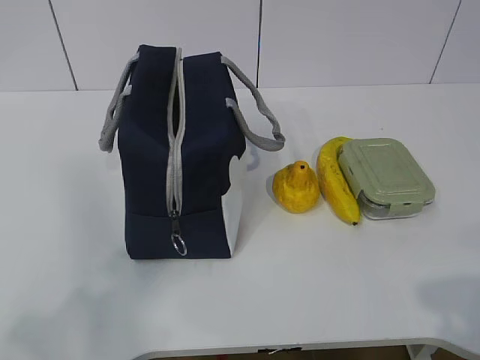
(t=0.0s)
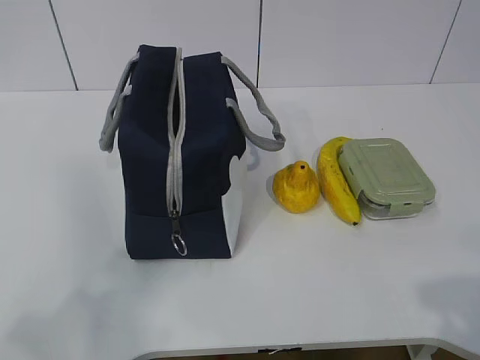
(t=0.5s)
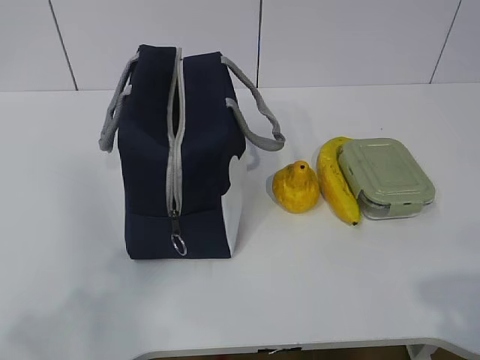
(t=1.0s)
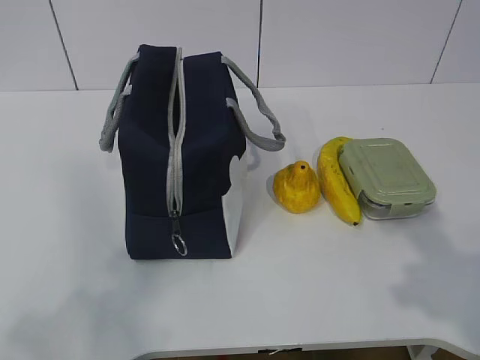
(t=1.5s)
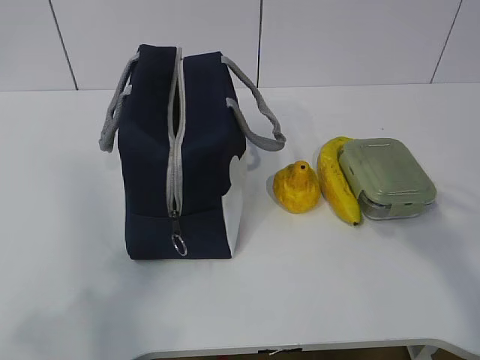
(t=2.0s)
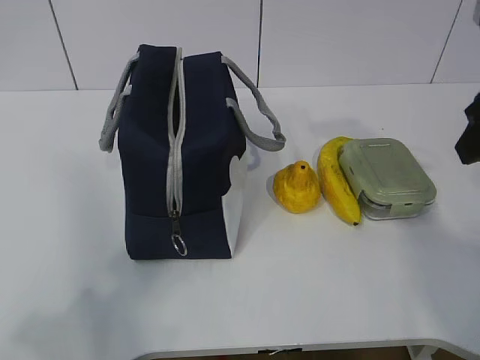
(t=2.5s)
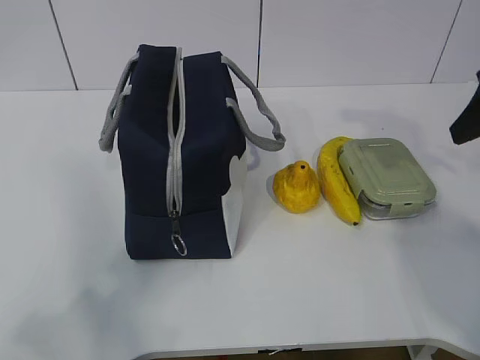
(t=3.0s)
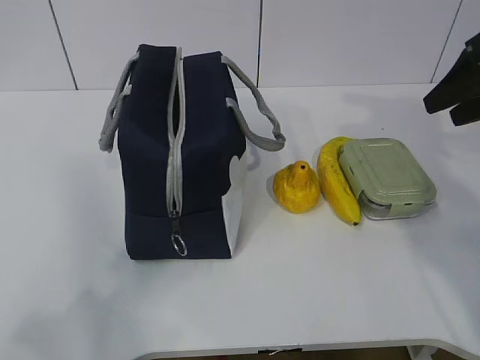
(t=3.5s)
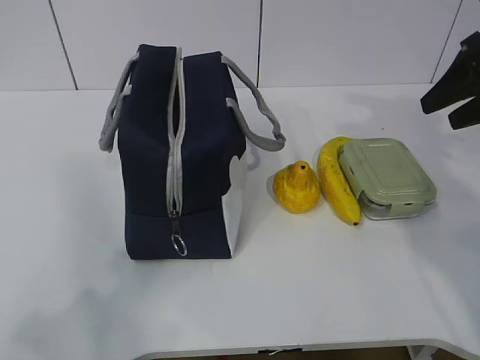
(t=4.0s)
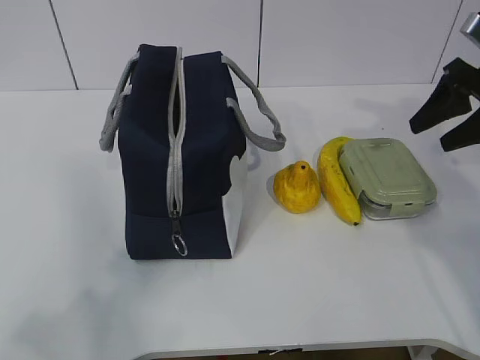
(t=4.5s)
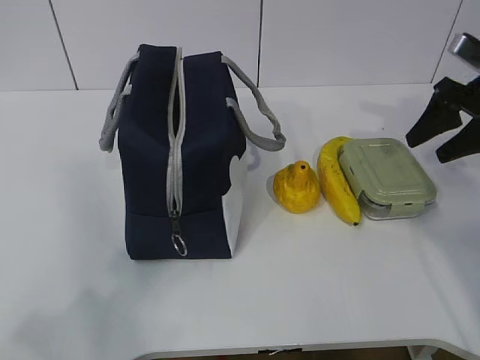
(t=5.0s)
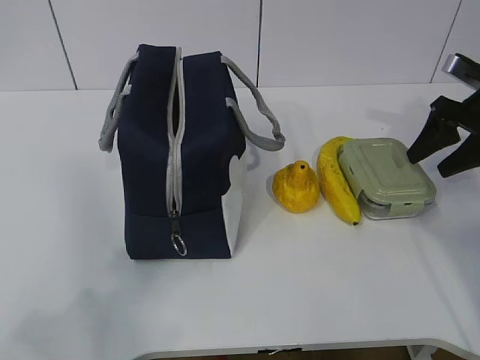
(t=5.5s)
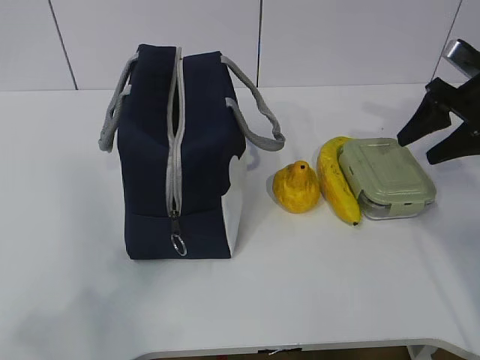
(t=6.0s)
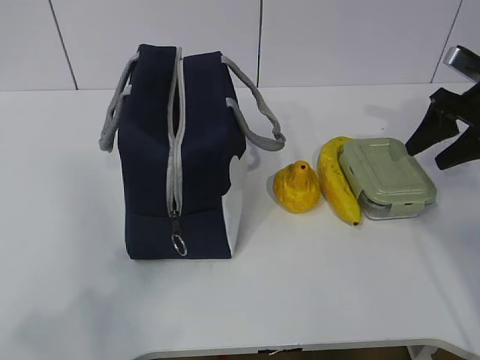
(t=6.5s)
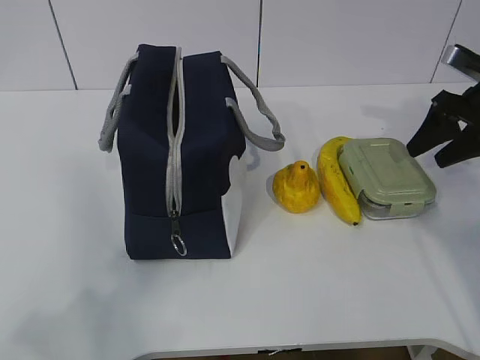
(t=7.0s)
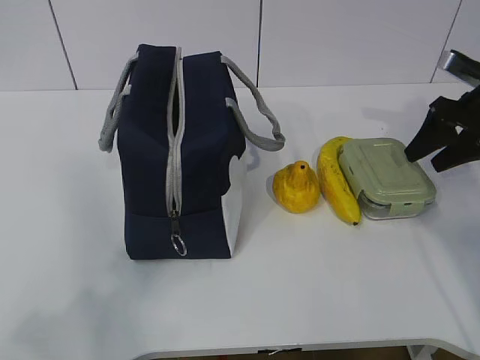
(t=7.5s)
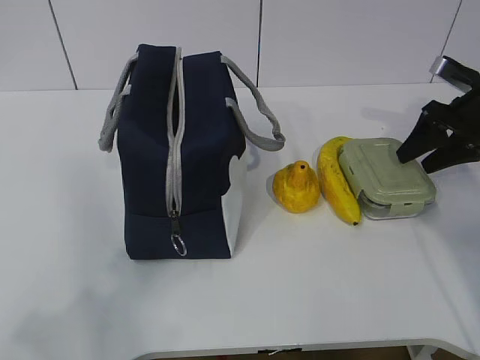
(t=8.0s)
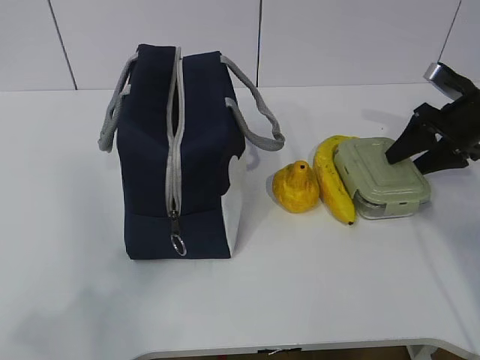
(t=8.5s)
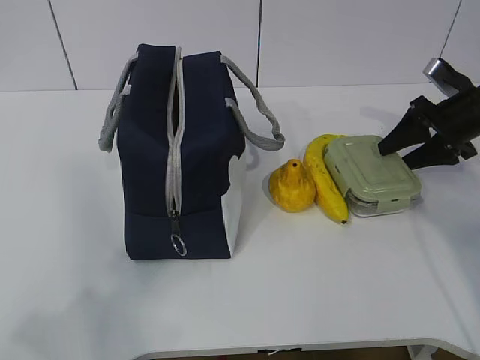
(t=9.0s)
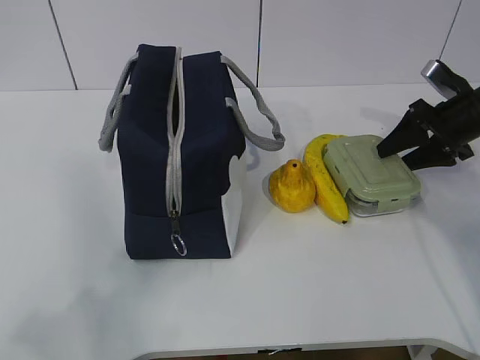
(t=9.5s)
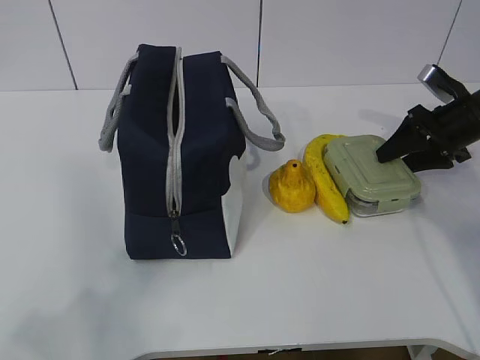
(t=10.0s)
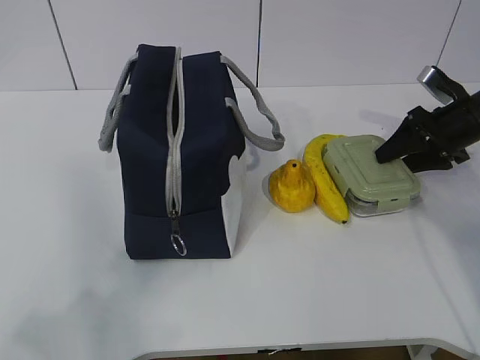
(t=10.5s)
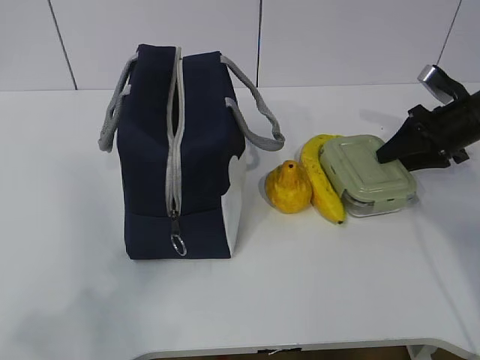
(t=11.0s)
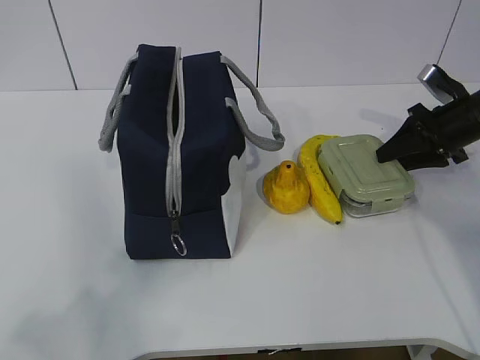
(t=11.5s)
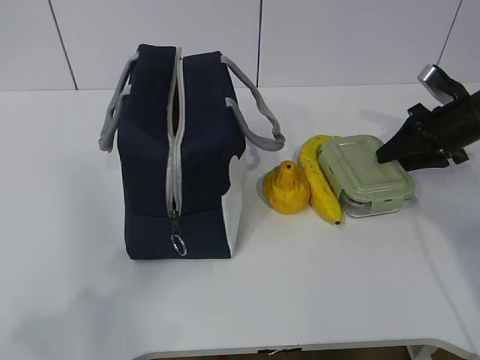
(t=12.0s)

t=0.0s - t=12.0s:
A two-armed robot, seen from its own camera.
t=2.0s - t=4.0s: The right gripper shifts about 20 cm forward.
t=4.0s - t=6.0s: The right gripper moves downward and forward, approximately 10 cm.
t=6.0s - t=10.0s: The grippers stay close to where they were, moving slightly.
t=10.0s - t=12.0s: The two grippers keep their place.

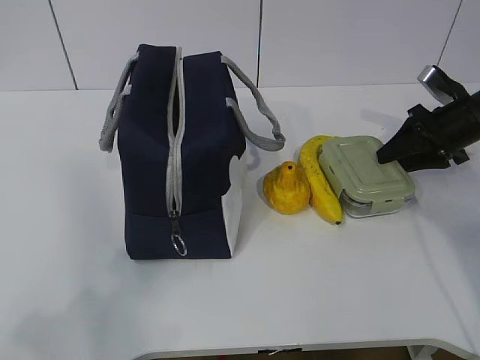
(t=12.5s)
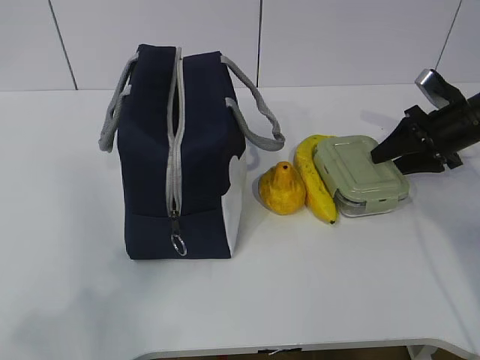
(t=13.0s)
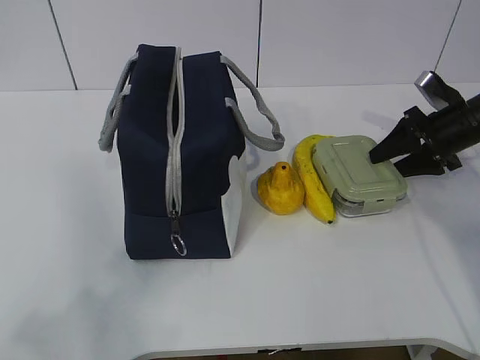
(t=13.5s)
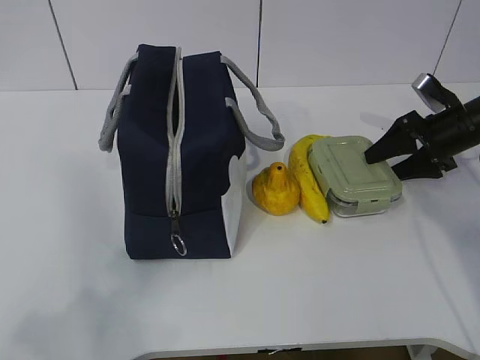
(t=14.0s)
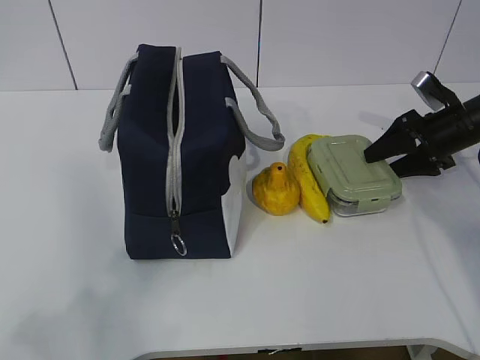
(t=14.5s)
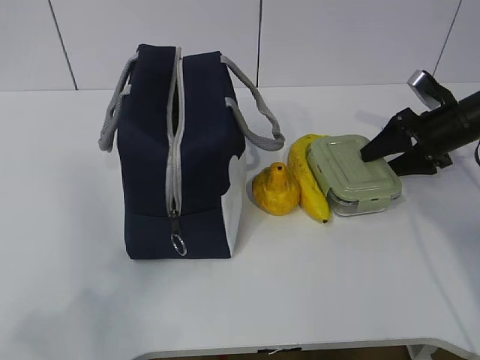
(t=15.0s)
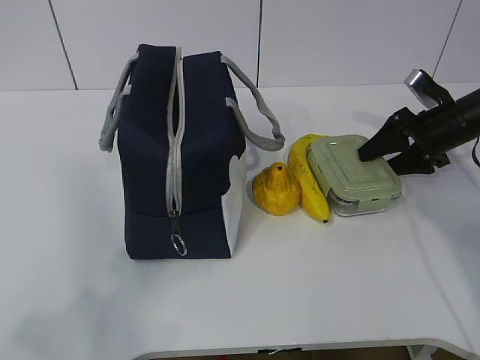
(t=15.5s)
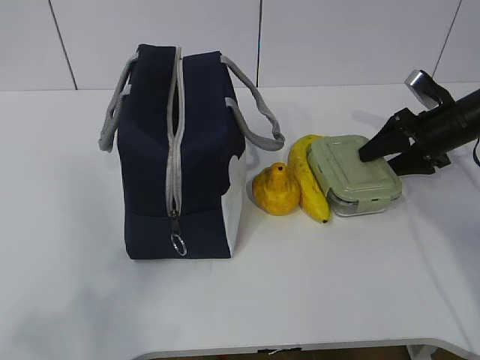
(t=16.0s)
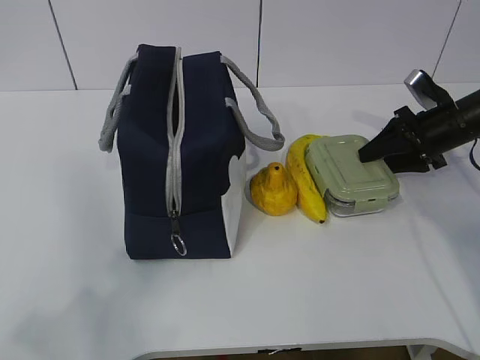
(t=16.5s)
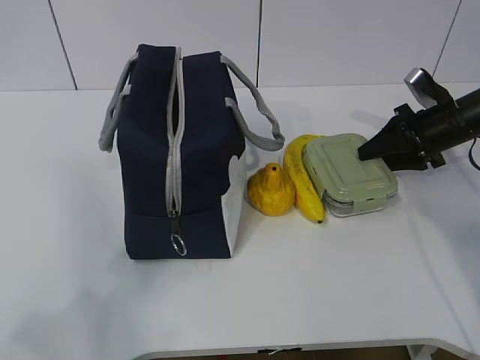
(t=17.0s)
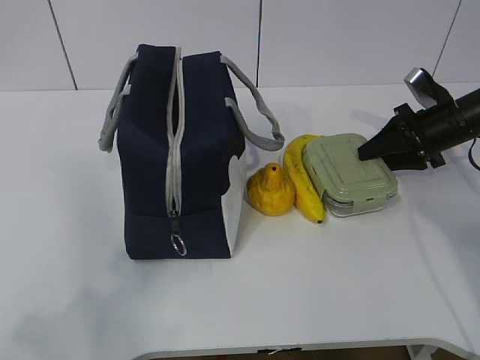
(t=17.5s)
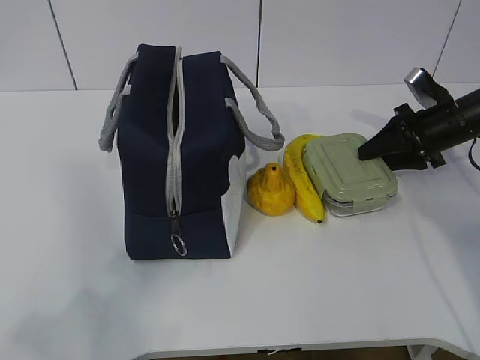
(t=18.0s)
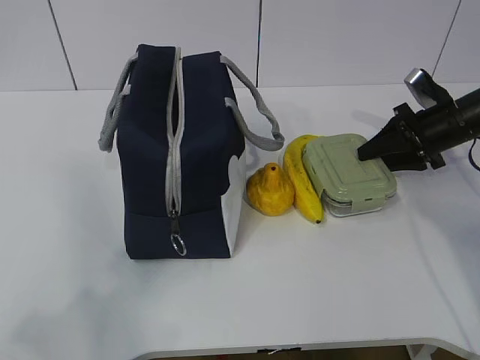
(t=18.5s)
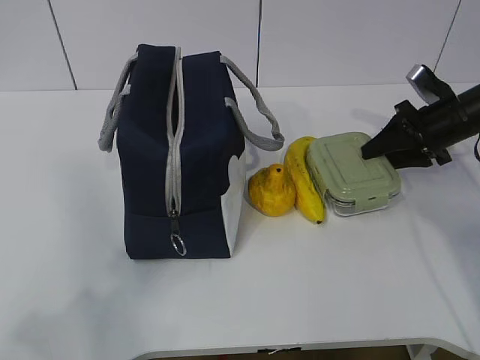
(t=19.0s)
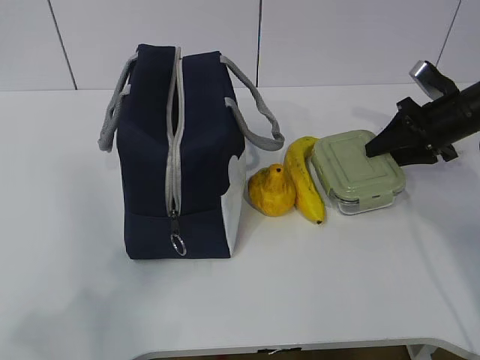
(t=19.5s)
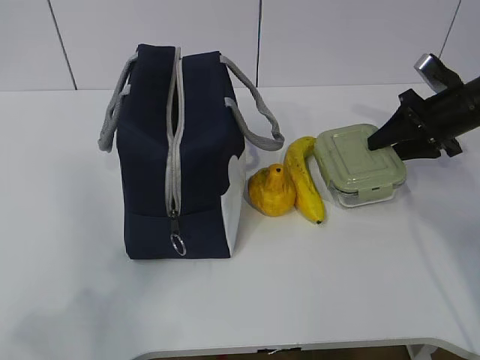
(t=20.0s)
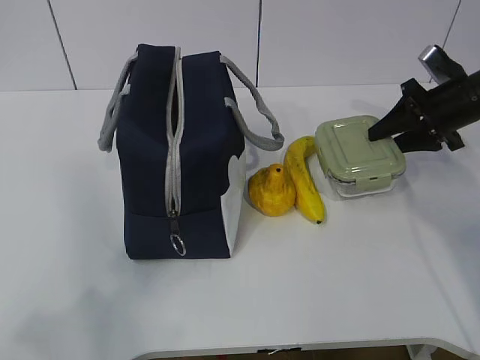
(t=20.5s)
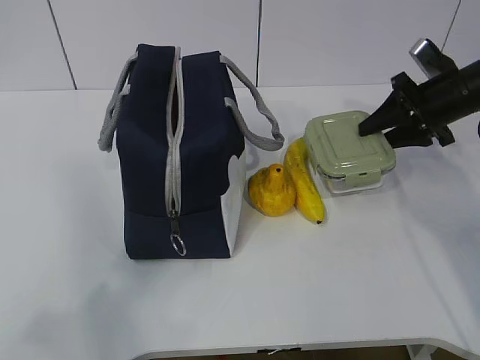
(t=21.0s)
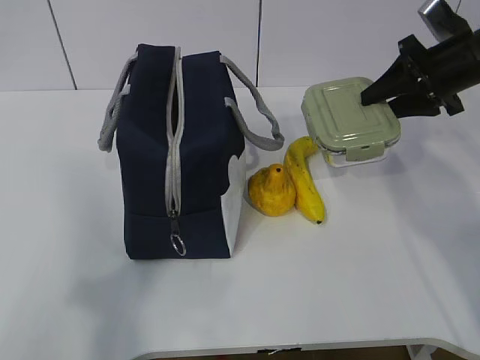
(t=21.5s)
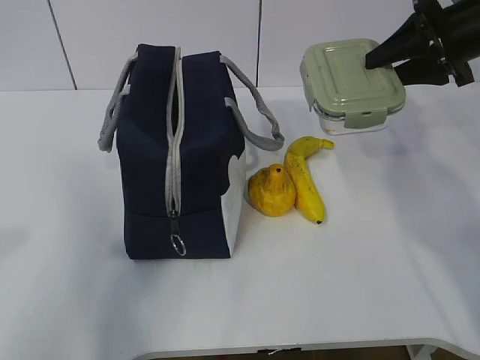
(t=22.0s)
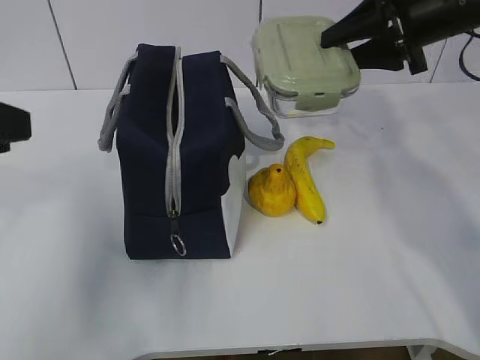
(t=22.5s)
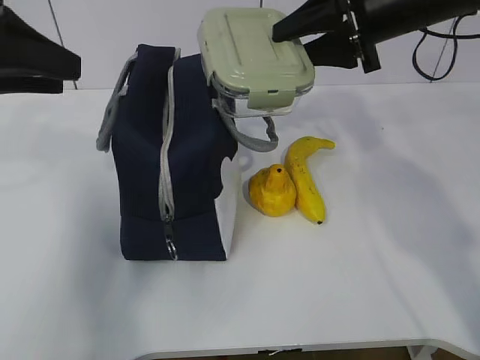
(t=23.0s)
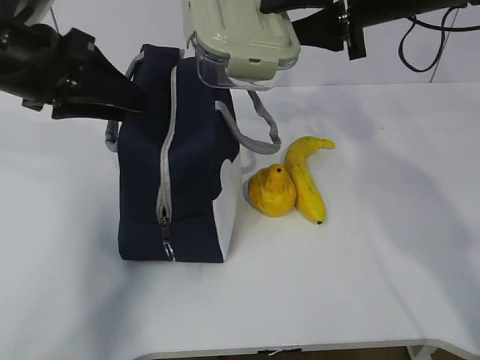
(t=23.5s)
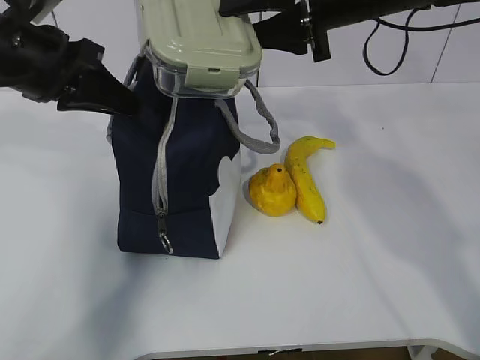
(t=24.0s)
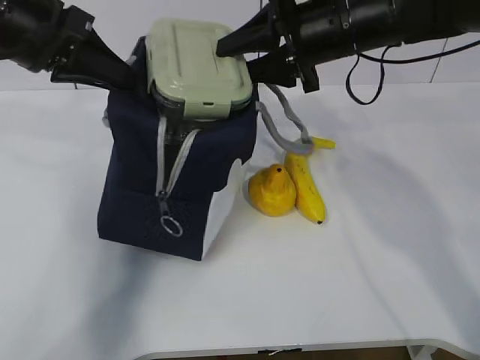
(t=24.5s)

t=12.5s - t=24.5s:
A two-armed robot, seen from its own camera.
Step, t=12.5s - t=19.0s: Grasp the box with the right gripper.
t=12.5s - t=14.5s: There are only small adjustments of the grippers.
t=14.5s - t=18.5s: Neither gripper changes place.
t=18.5s - t=20.5s: The grippers stay close to where they were, moving slightly.
t=20.5s - t=22.5s: The left gripper goes about 20 cm forward. The right gripper heads upward and to the left, covering about 15 cm.
t=22.5s - t=24.5s: The right gripper is displaced to the left by about 10 cm, while the left gripper shifts roughly 15 cm forward, and closes.

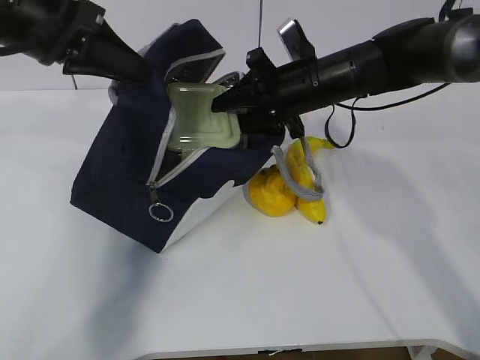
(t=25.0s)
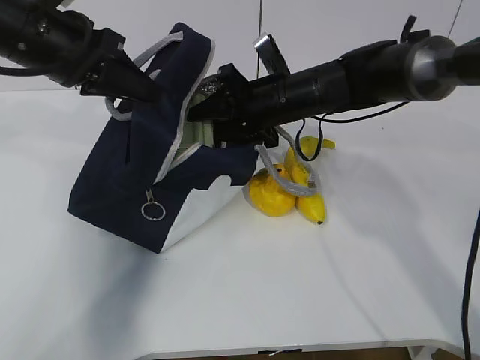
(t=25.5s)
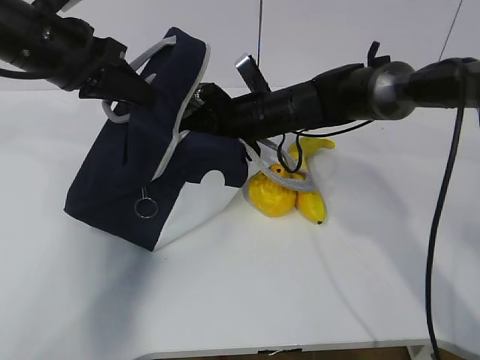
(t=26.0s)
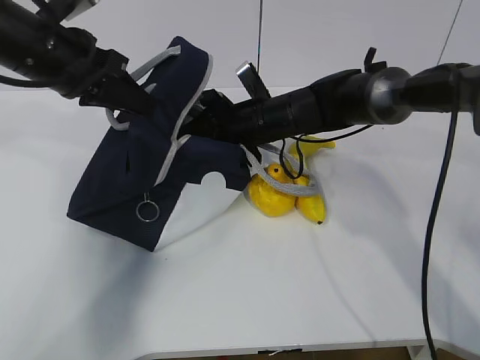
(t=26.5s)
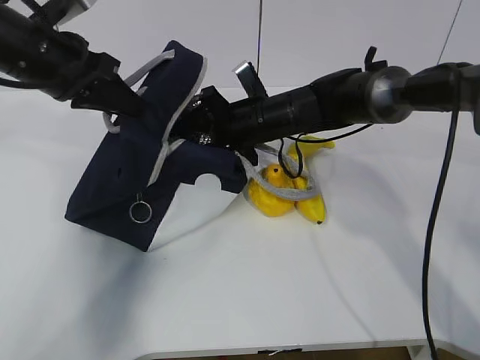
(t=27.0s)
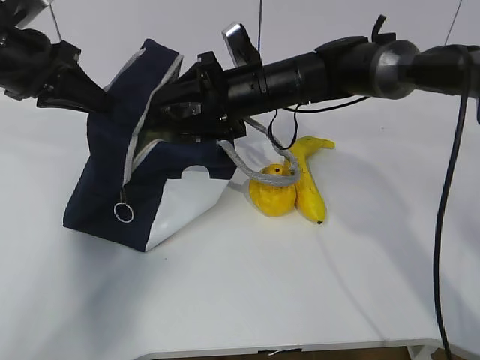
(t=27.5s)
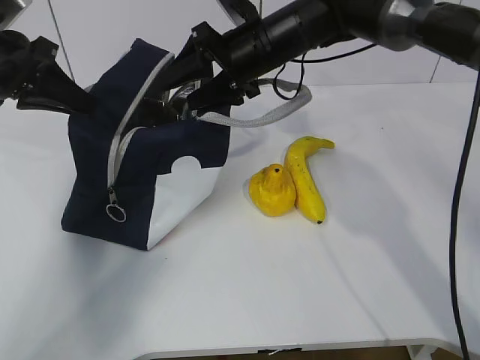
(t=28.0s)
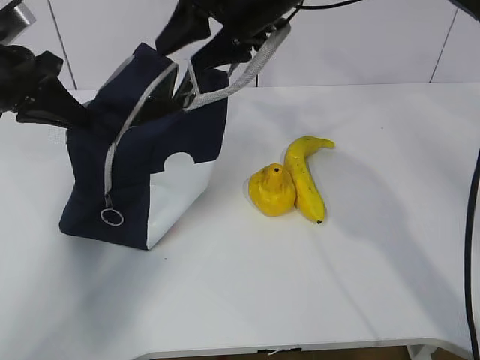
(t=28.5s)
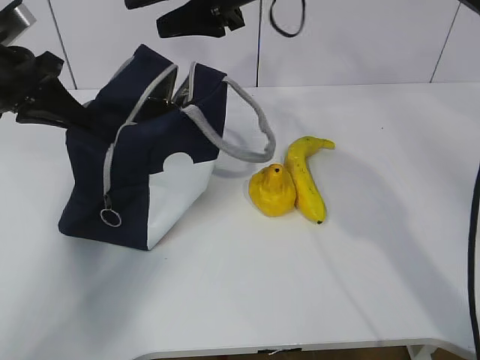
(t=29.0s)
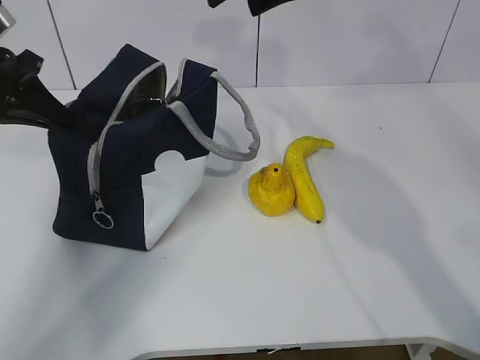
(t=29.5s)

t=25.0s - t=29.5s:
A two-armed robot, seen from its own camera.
Step, t=25.0s - t=27.0s: Place the box into the package with the right gripper.
t=25.0s - t=27.0s: The left gripper shifts roughly 5 cm downward; the right gripper travels downward and to the left by about 10 cm.
t=27.0s - t=29.5s: The left gripper goes some 10 cm to the left, while the right gripper moves upward, roughly 25 cm.
